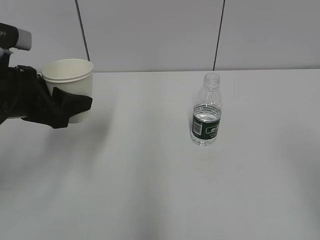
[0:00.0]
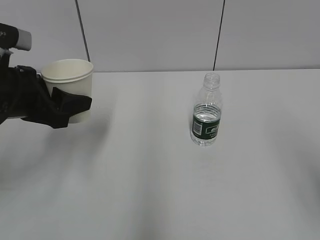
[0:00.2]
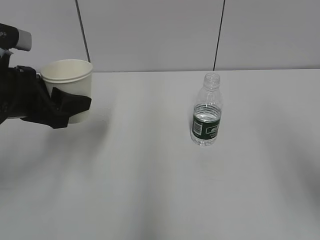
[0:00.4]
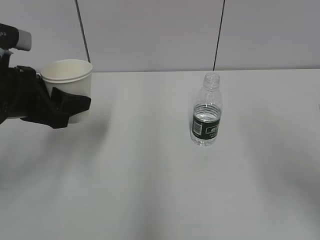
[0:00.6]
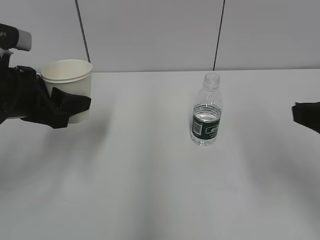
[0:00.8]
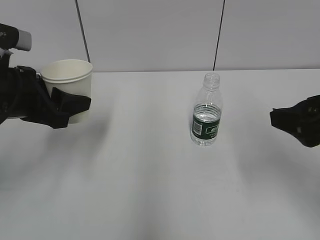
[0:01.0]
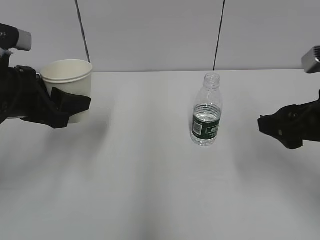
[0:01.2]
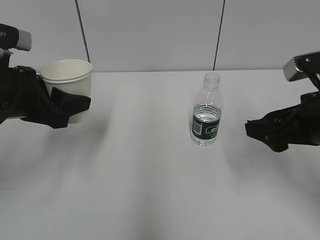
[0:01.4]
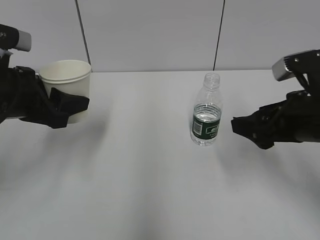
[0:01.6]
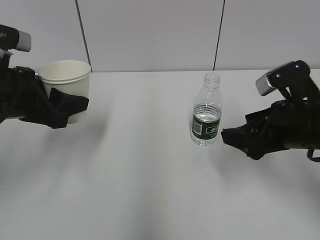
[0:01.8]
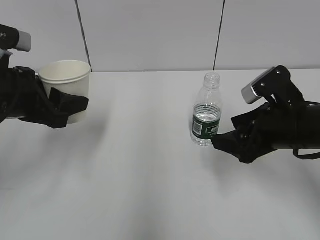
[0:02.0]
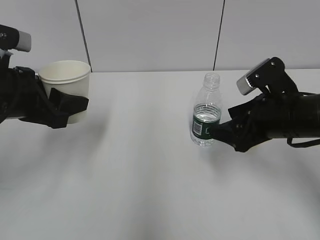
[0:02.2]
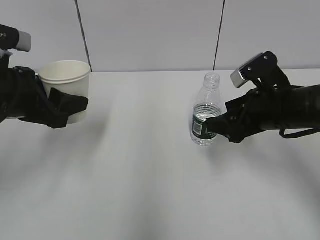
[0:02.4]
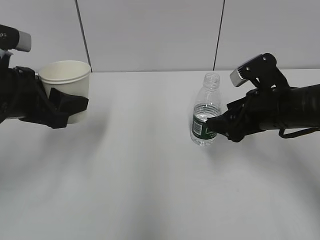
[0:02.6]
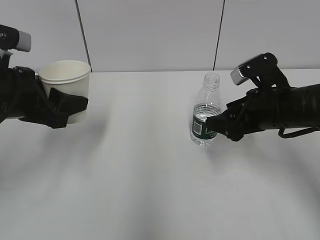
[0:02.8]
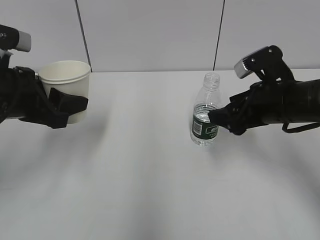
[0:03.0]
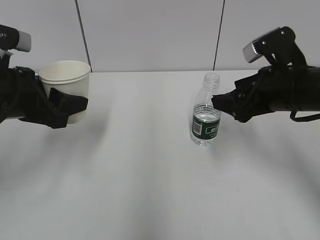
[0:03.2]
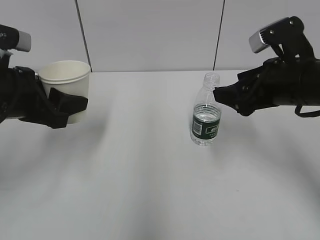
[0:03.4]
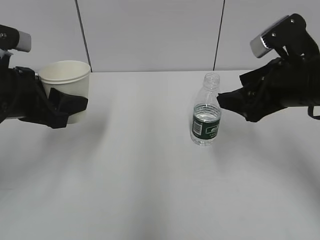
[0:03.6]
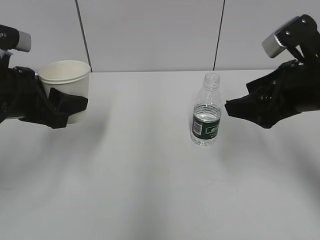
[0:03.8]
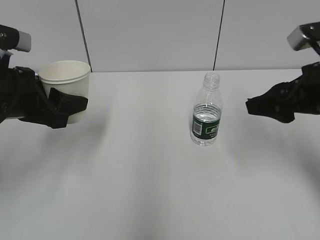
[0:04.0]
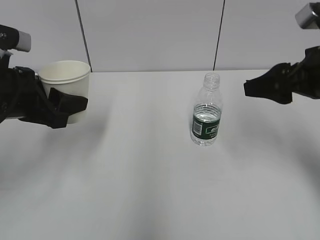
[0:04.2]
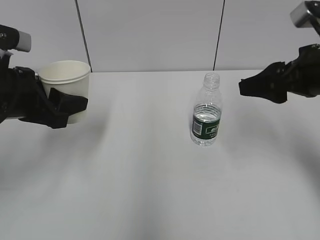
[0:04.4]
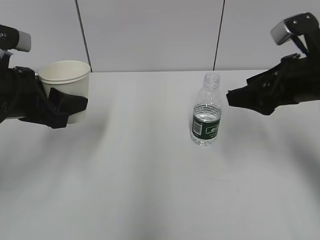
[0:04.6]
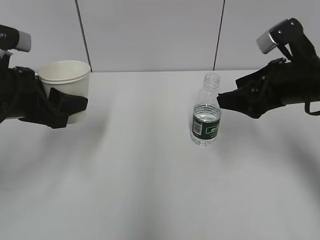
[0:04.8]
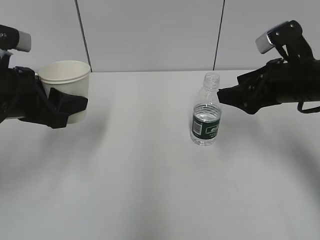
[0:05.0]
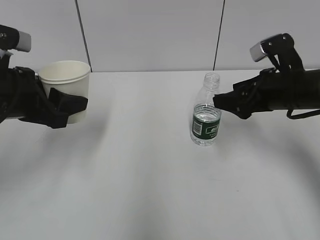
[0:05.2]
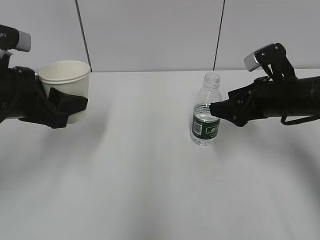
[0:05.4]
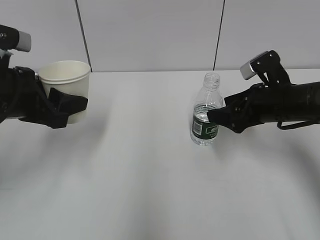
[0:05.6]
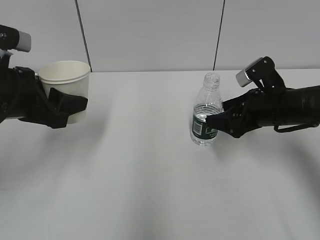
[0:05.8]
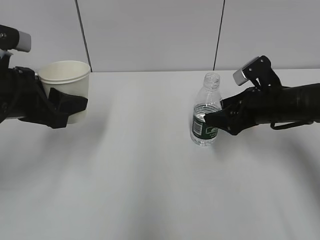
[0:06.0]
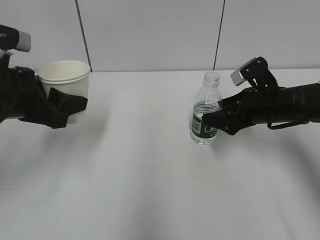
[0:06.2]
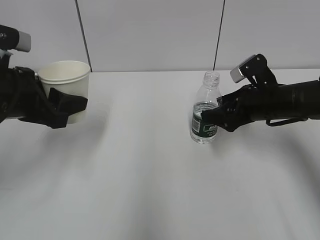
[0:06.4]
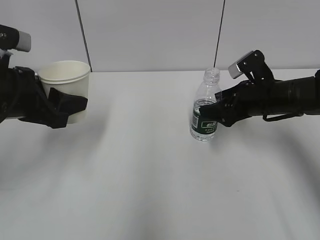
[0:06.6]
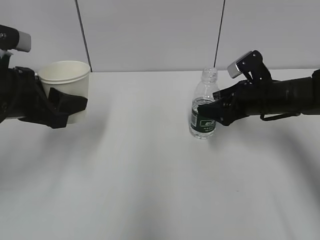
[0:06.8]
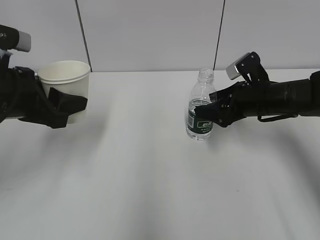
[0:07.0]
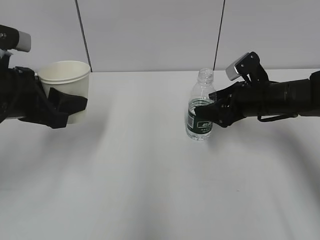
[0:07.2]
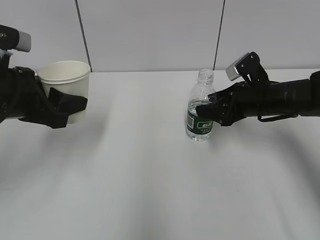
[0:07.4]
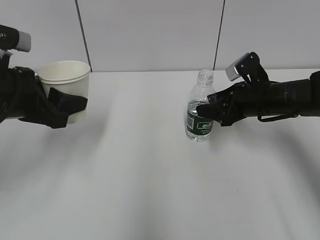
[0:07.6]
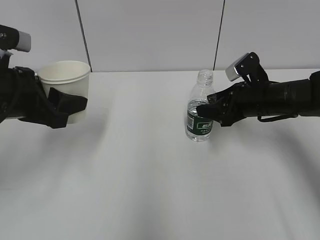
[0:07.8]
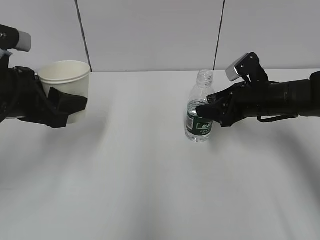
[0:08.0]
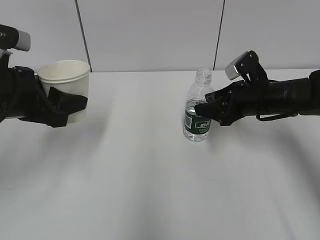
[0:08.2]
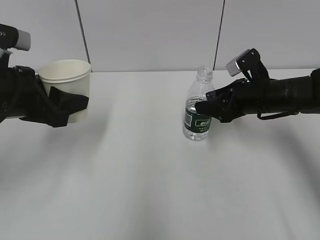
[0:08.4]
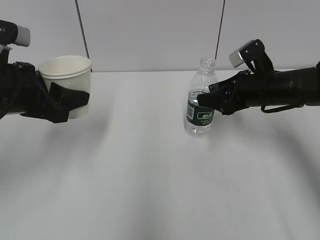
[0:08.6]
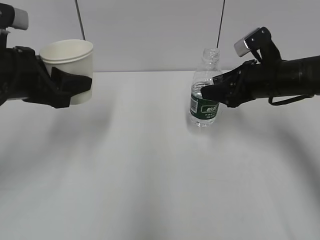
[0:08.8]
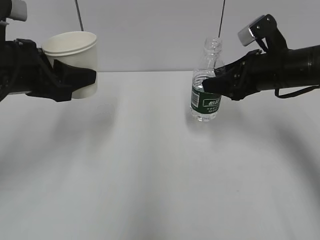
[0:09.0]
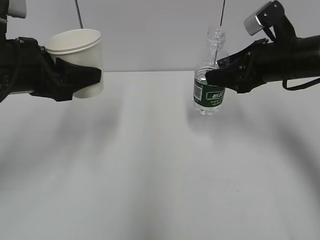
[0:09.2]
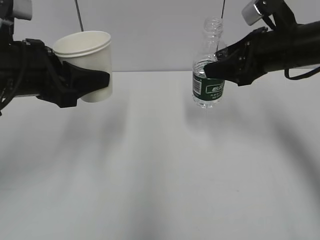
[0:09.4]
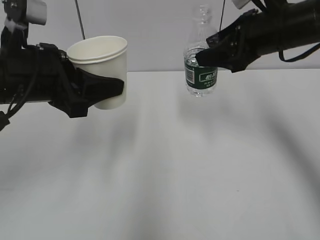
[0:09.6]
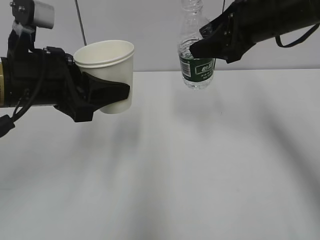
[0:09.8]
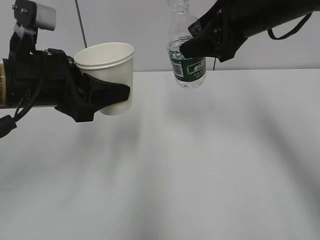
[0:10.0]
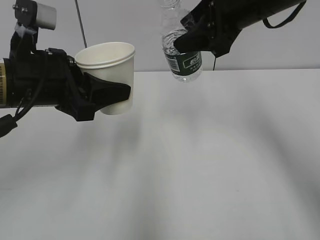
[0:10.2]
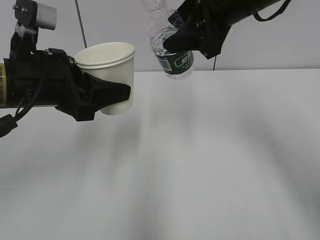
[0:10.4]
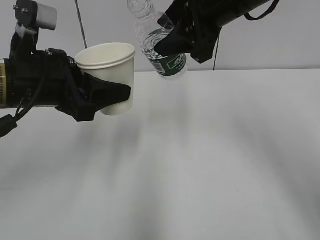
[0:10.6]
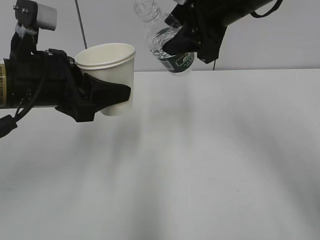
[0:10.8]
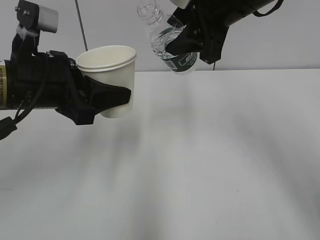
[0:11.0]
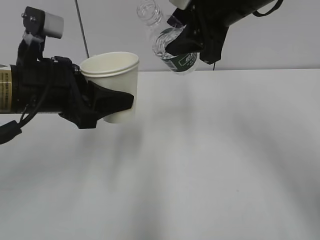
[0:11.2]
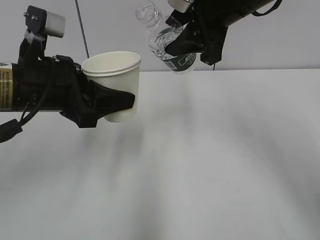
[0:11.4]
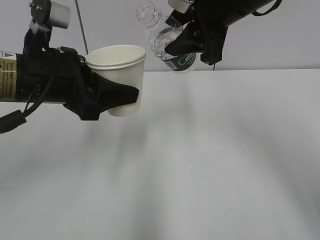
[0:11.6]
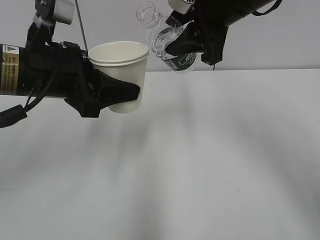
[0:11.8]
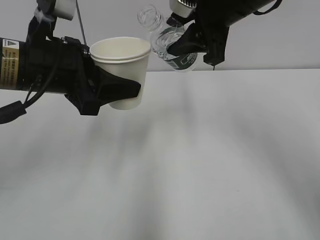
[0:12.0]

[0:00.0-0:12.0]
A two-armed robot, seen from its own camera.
Step, 0:00.0 to 0:04.2: Grab the water bottle with the right hand.
Step, 0:04.4 to 0:11.0: Lift the paper cup with the left hand.
0:00.0 to 0:01.6: The right gripper goes roughly 20 cm forward and downward, and opens up.
0:01.6 to 0:03.0: The right gripper moves forward, some 5 cm.
0:03.0 to 0:04.4: The right gripper is displaced upward by approximately 5 cm.
0:04.4 to 0:06.0: The right gripper heads downward and forward, covering about 15 cm.
0:06.0 to 0:07.6: The right gripper closes.
0:07.6 to 0:09.0: The right gripper travels upward by approximately 5 cm.
0:09.0 to 0:10.4: The right gripper moves upward and to the left, roughly 15 cm.
0:10.4 to 0:12.0: There are only small adjustments of the grippers.

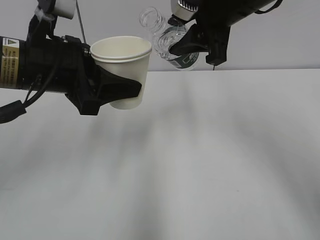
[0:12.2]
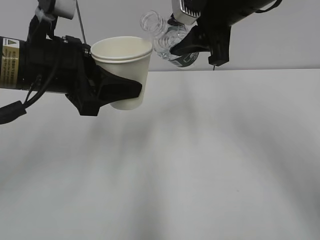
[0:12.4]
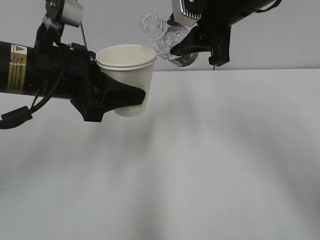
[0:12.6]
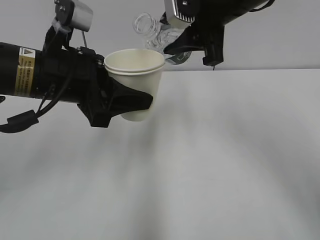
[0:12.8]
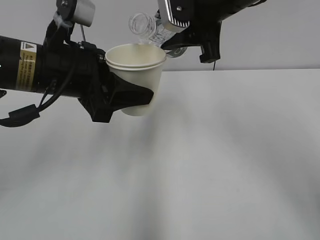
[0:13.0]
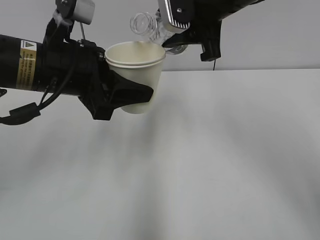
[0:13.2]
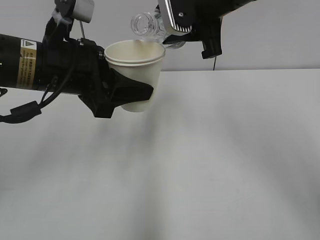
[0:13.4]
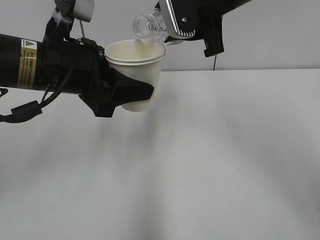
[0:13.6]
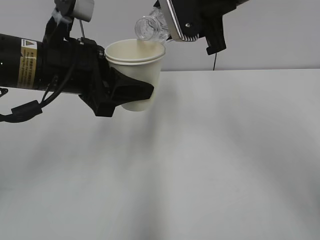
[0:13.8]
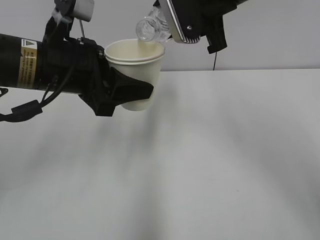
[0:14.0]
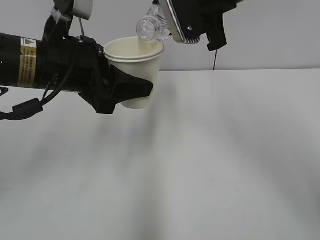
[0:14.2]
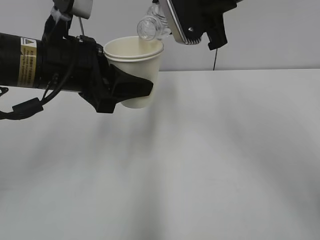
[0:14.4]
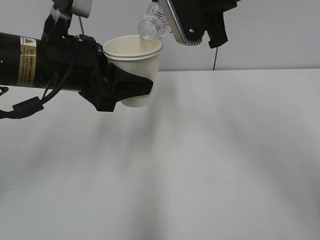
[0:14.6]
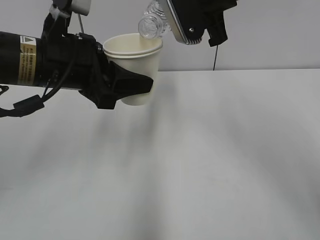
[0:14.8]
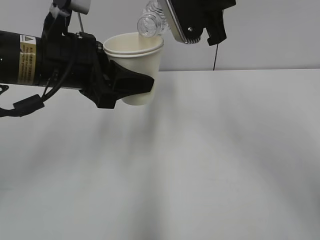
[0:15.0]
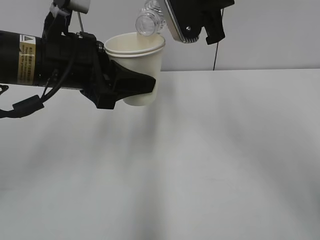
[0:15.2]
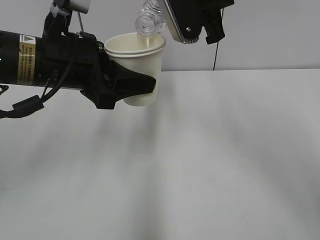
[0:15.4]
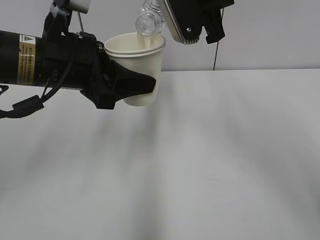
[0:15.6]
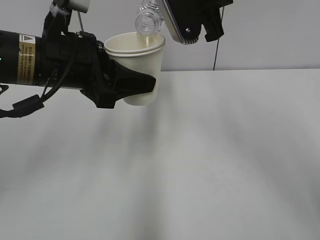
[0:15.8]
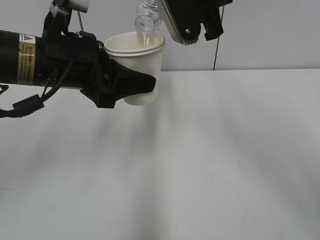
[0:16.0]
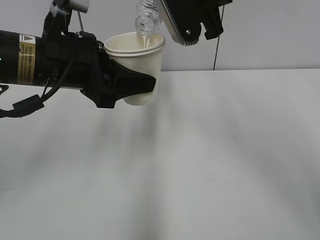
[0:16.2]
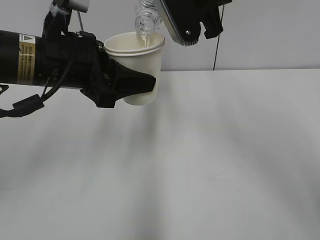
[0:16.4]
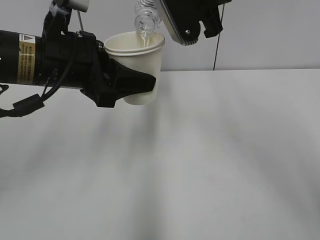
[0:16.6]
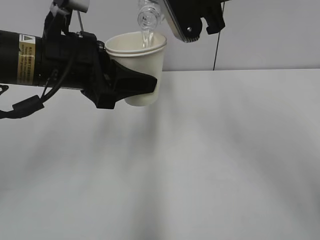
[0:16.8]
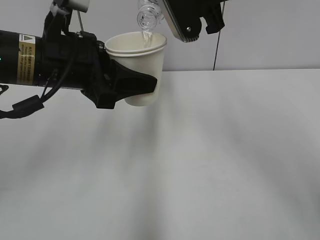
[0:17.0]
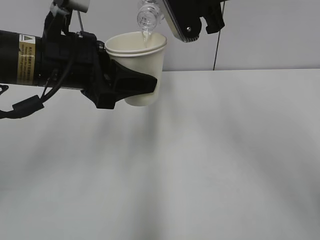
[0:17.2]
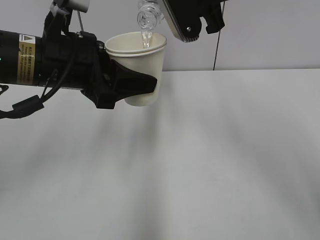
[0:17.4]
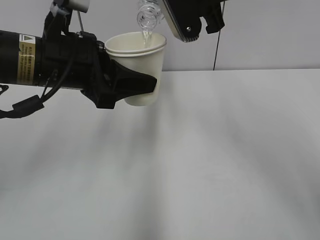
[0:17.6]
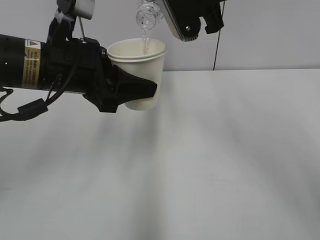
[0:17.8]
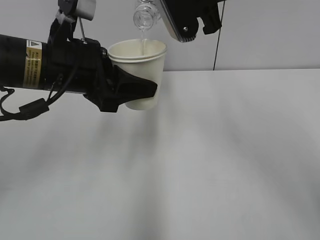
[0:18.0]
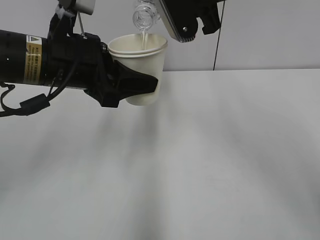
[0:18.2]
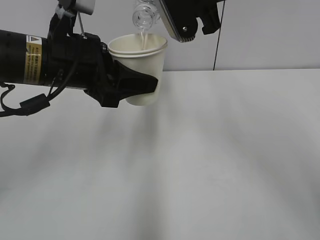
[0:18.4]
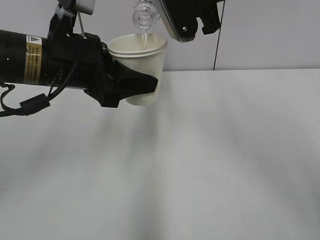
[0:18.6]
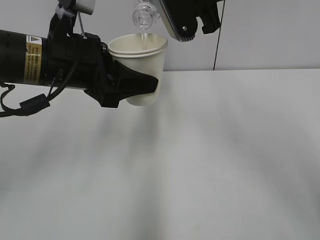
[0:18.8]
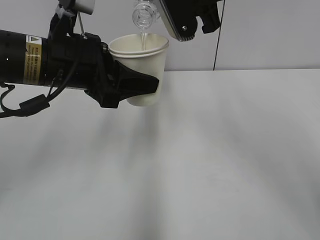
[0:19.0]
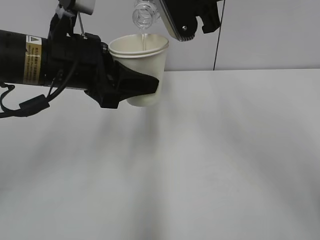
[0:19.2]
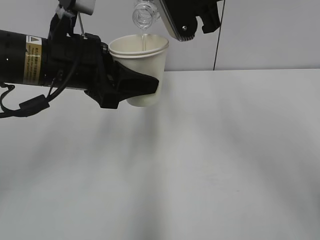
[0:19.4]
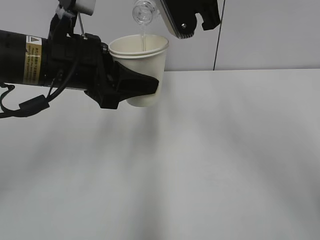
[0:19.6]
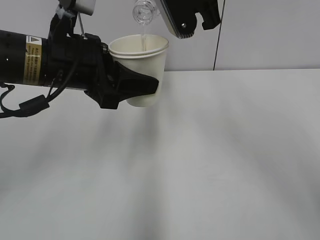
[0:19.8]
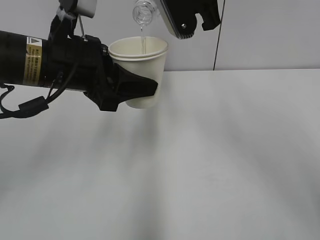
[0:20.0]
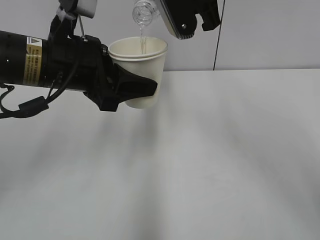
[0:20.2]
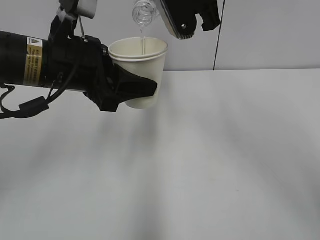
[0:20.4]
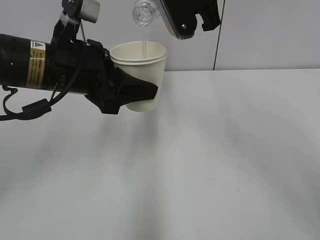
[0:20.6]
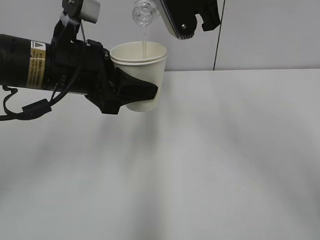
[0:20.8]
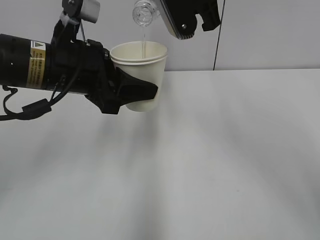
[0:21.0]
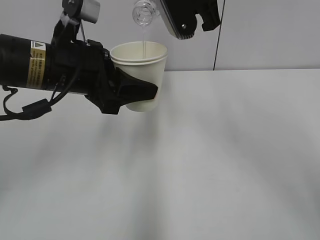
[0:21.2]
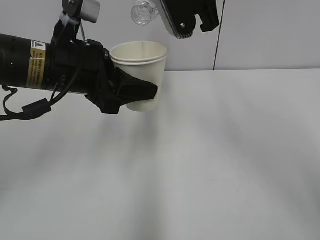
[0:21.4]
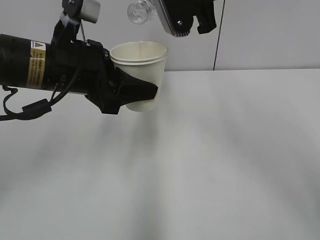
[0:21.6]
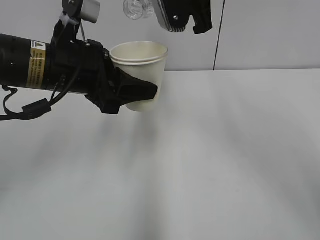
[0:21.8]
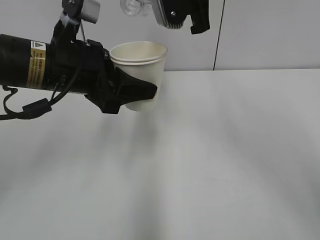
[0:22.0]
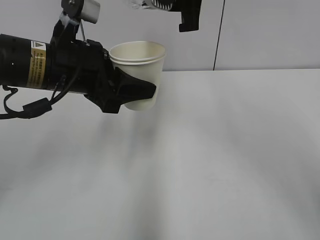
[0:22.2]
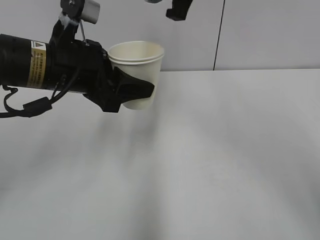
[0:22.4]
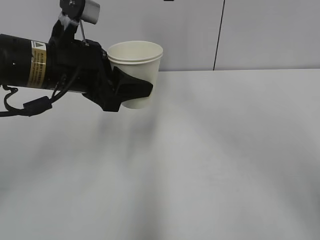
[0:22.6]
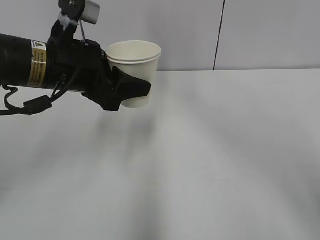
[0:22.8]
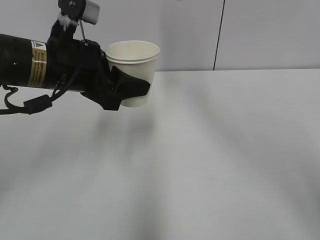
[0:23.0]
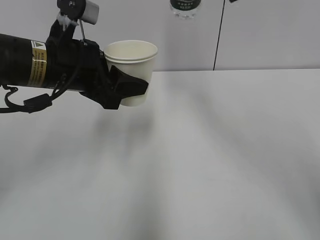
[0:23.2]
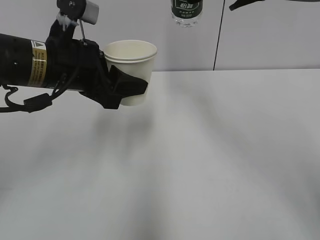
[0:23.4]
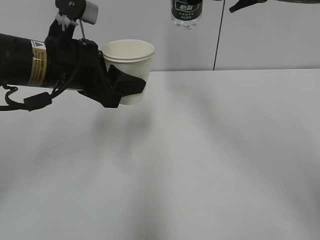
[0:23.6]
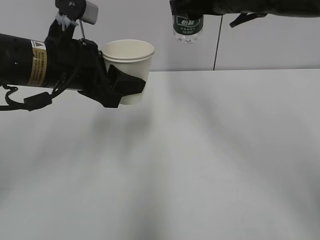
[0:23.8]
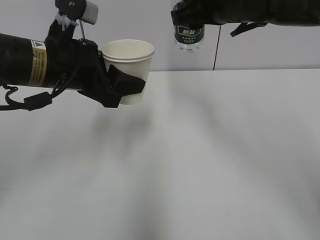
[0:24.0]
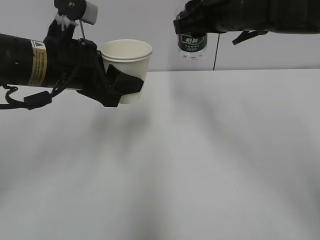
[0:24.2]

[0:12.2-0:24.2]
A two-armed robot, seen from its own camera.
Step, 0:12.2 to 0:16.0: Fill water with the left hand.
Step, 0:12.2 to 0:16.0: Pour water with the right hand.
Step, 0:16.2 to 0:16.8: Collect water with the right hand.
0:13.8 to 0:16.6: The grippers stay close to where they were, moving slightly.
0:16.6 to 0:21.2: Both grippers stay put.
0:22.6 to 0:24.2: The right gripper goes about 5 cm downward.
